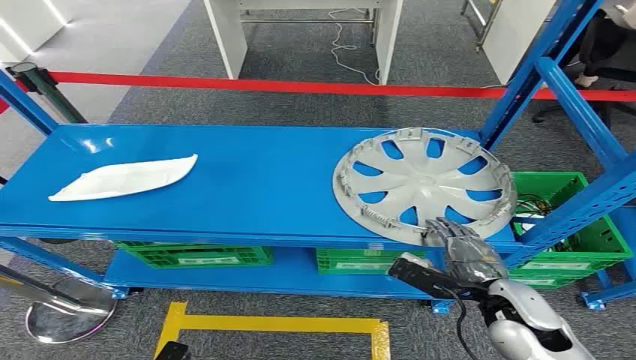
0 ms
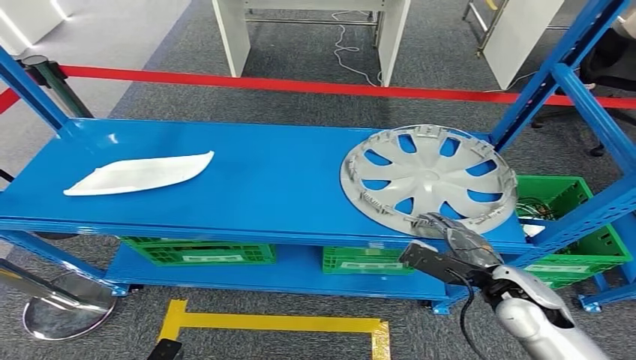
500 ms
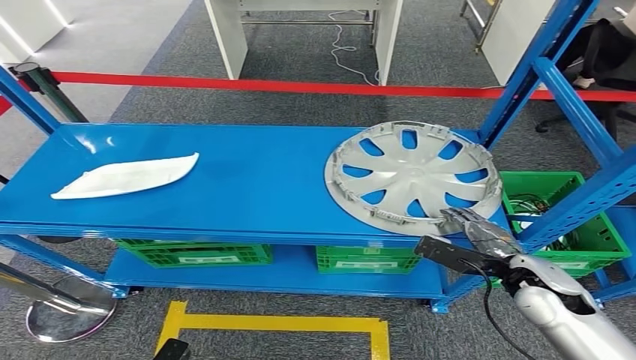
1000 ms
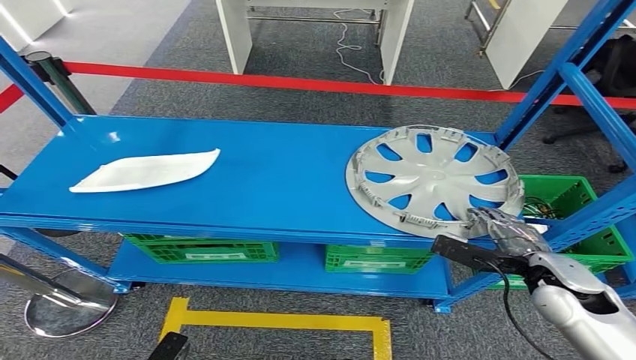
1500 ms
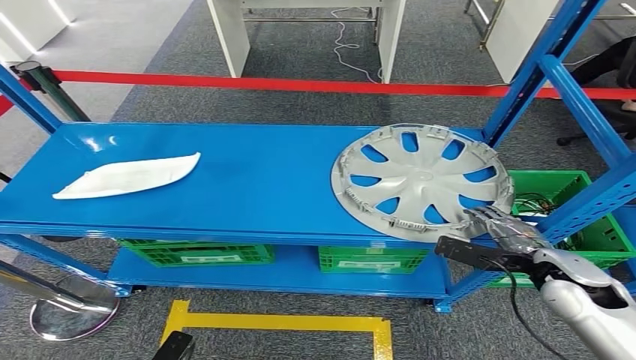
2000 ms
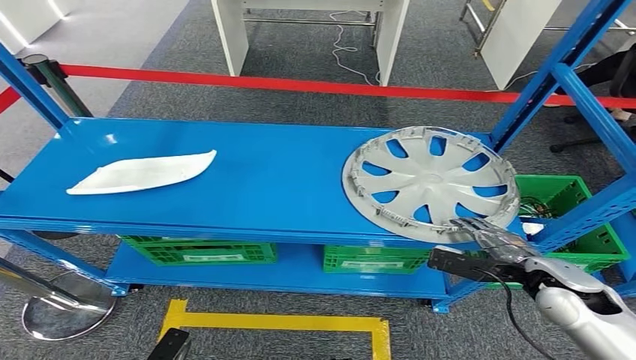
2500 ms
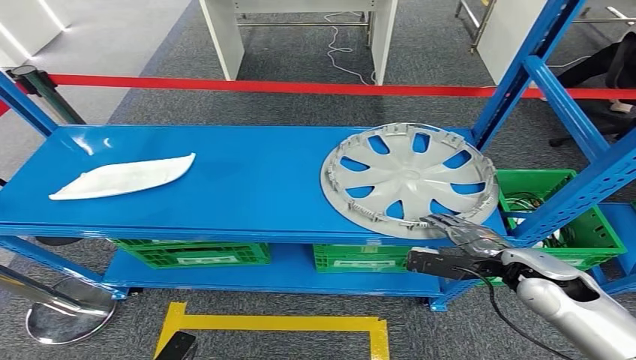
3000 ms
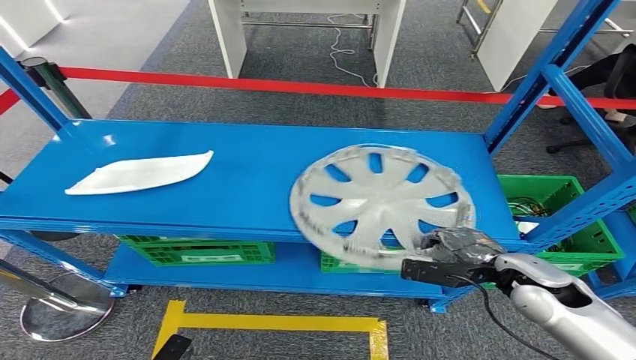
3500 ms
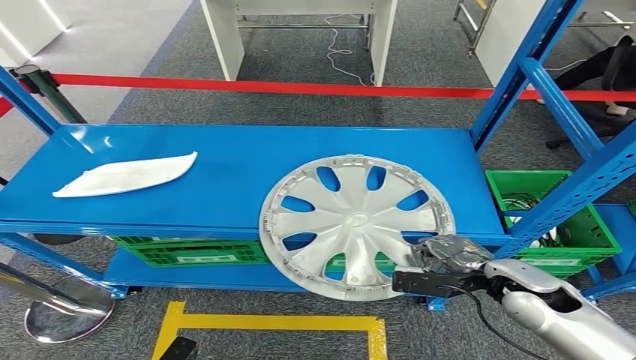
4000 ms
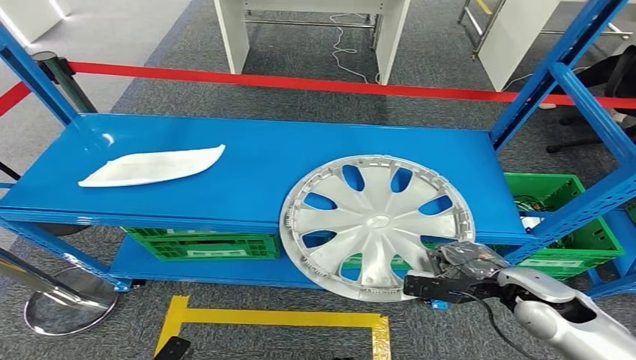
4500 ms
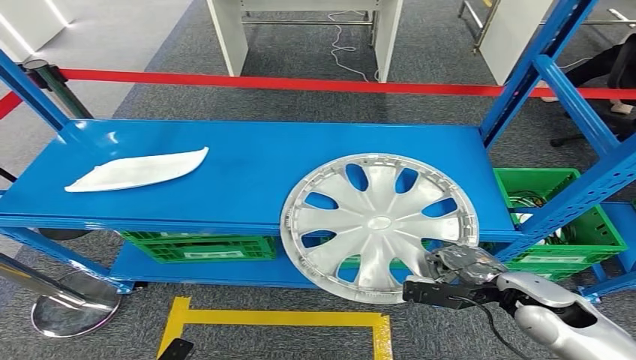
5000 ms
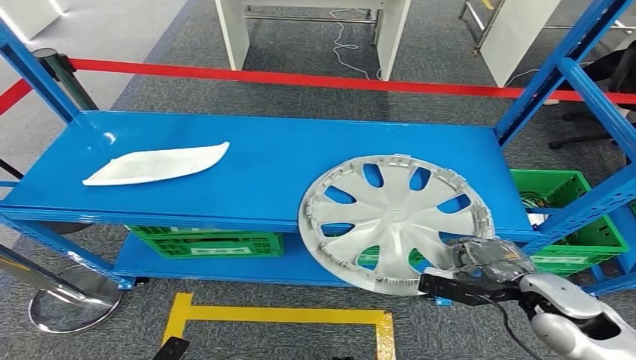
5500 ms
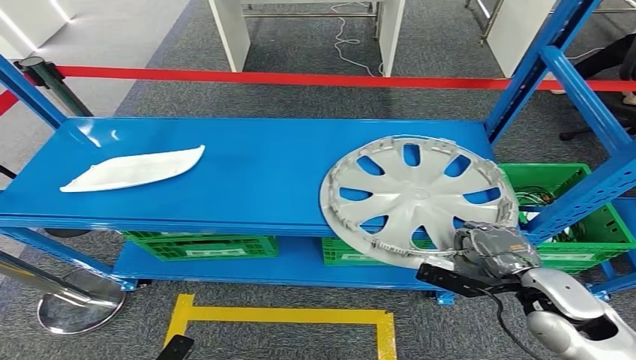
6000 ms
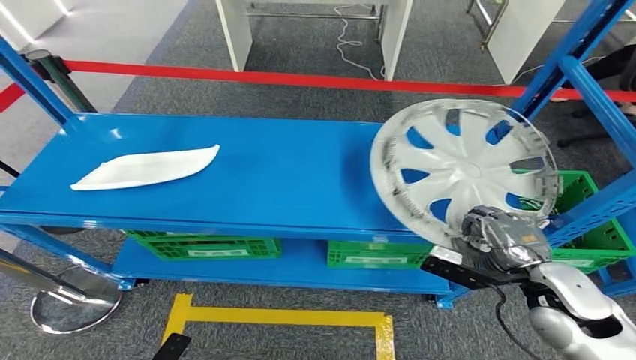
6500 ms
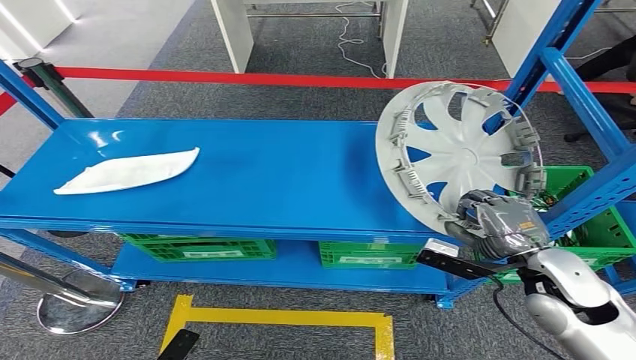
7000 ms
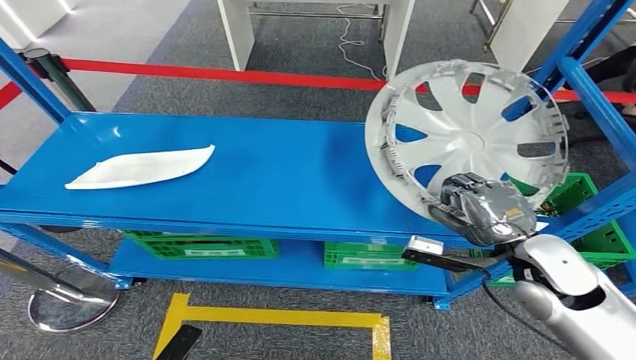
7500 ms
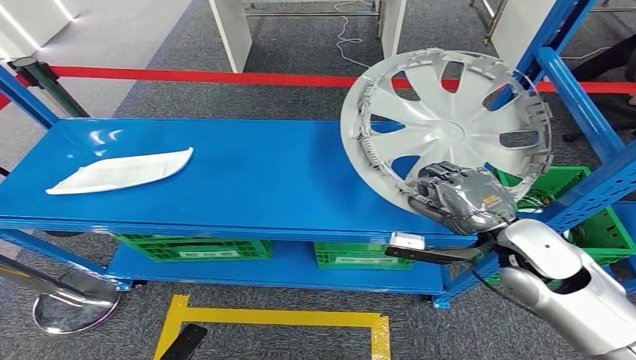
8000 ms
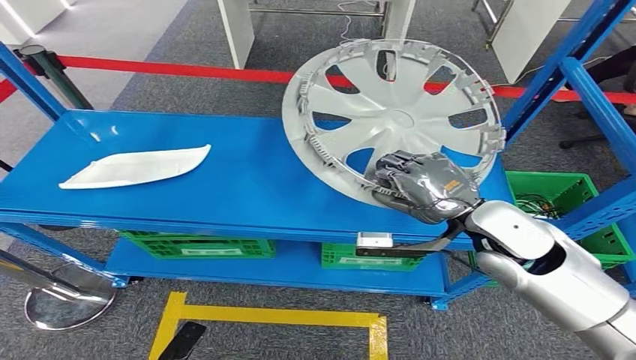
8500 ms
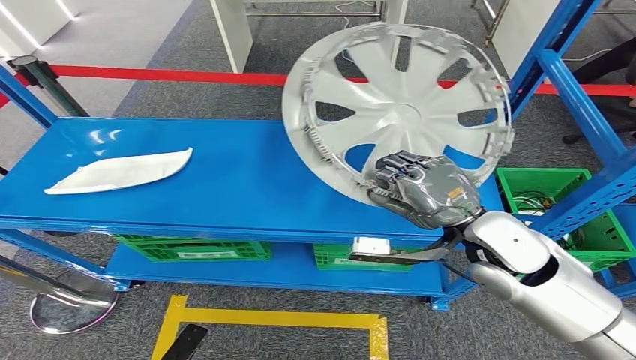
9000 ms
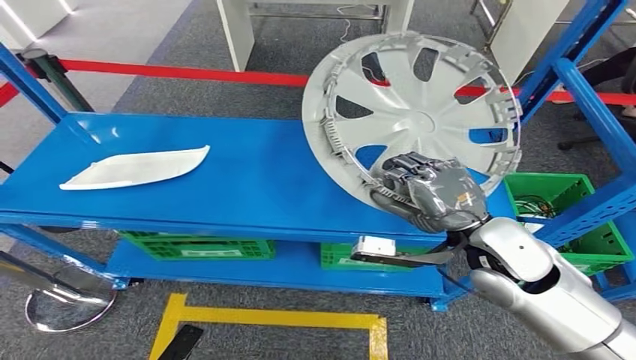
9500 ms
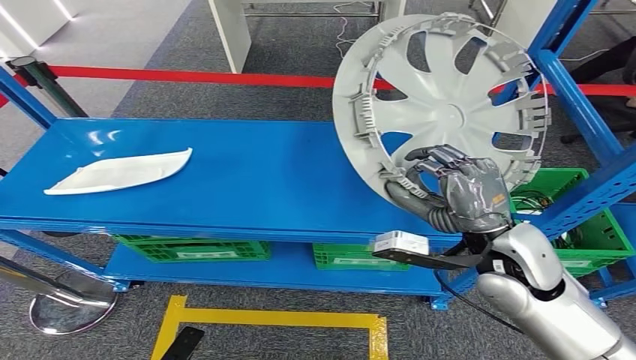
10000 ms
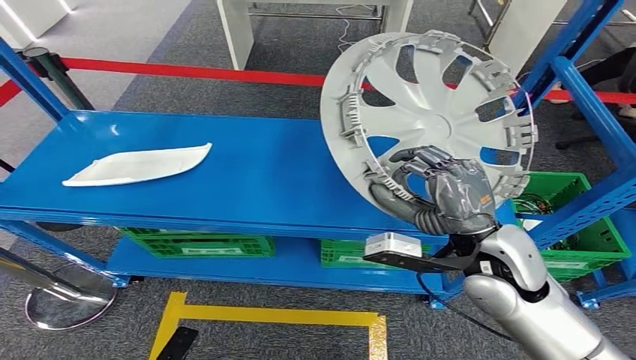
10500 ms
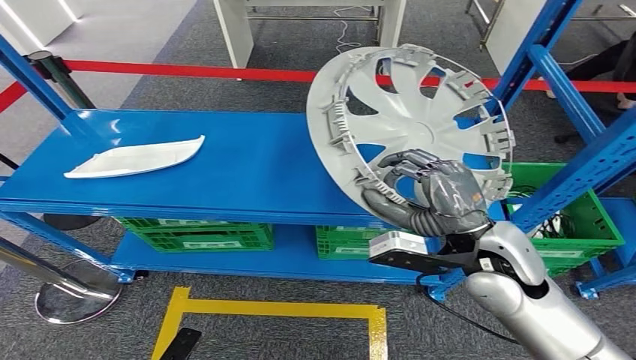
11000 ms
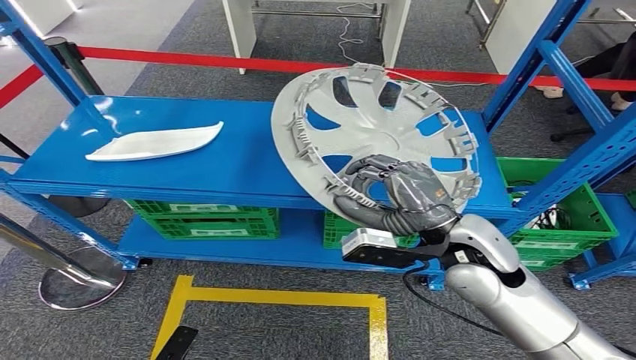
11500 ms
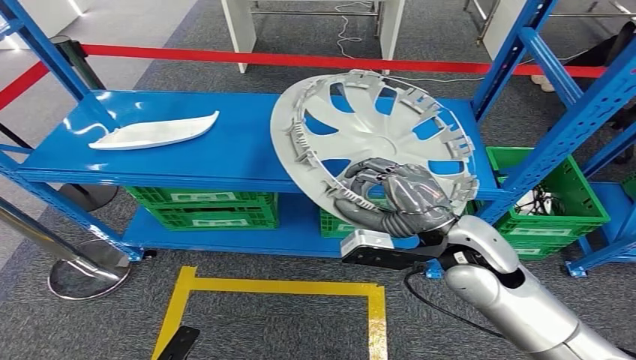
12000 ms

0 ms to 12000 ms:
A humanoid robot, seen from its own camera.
Step, 0 ms to 7000 ms: Pick up the small parts from the shelf.

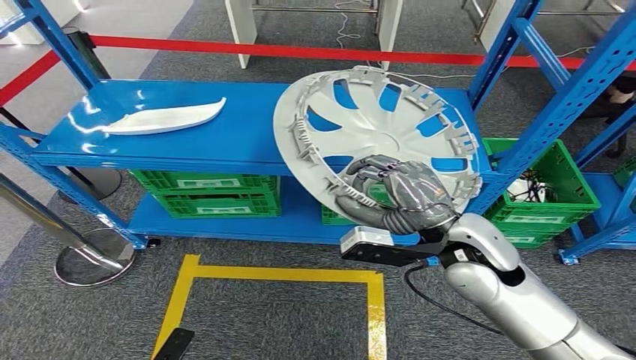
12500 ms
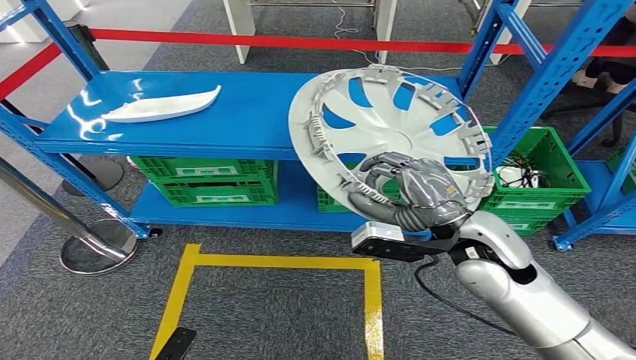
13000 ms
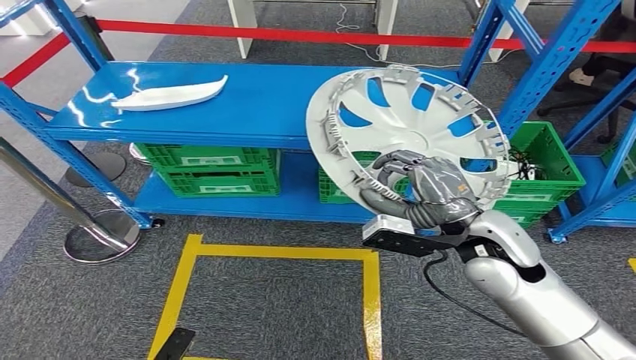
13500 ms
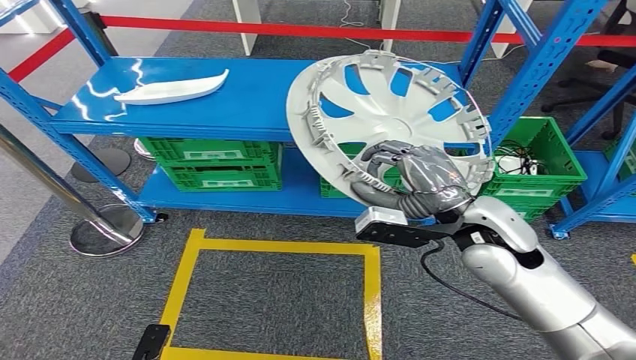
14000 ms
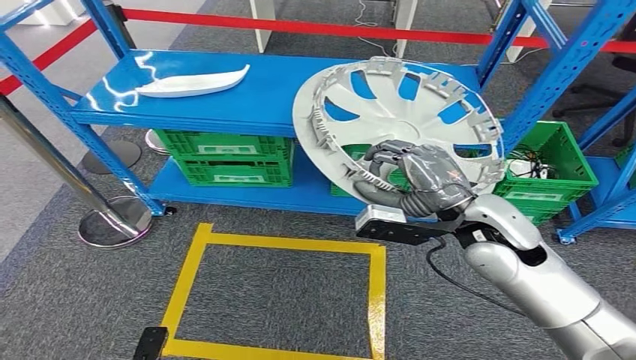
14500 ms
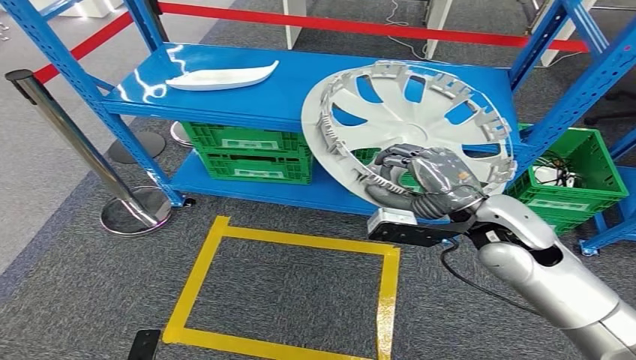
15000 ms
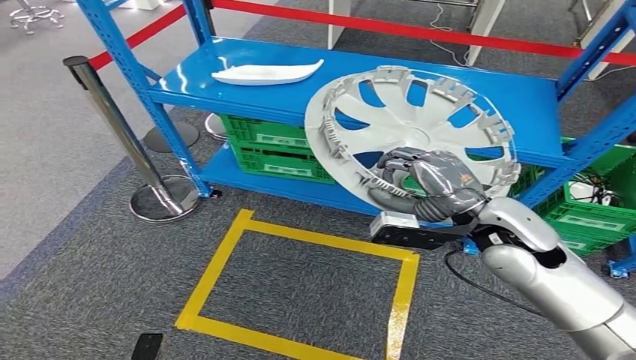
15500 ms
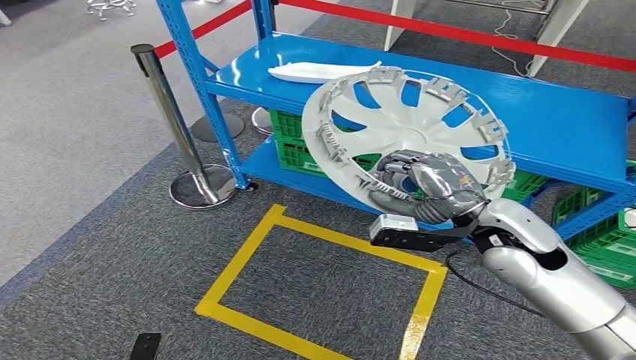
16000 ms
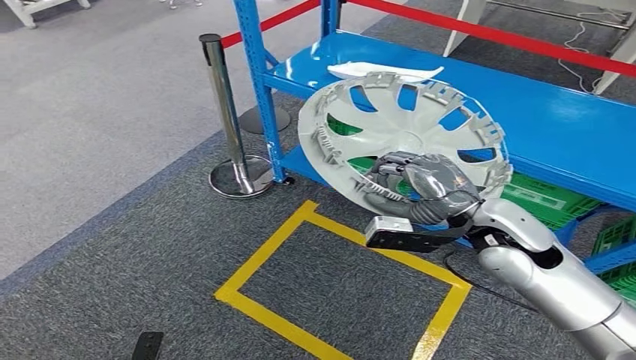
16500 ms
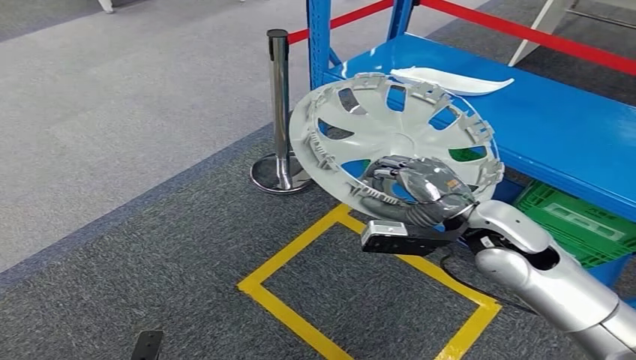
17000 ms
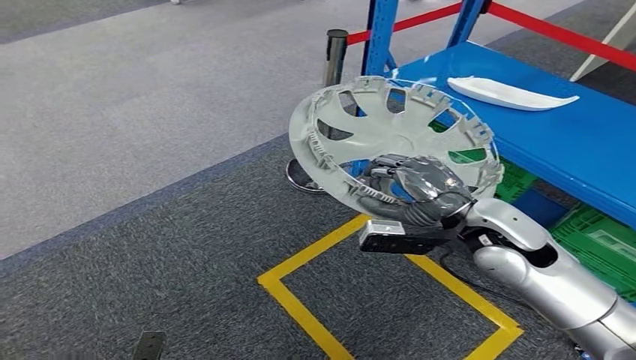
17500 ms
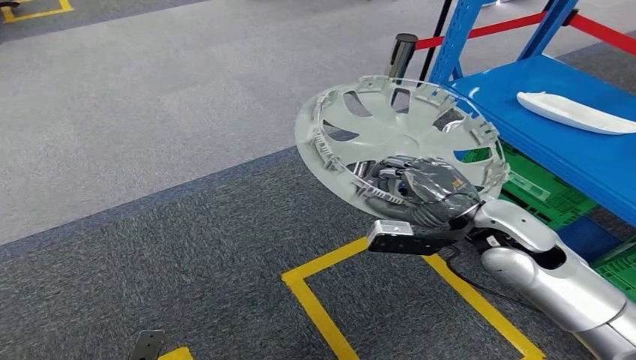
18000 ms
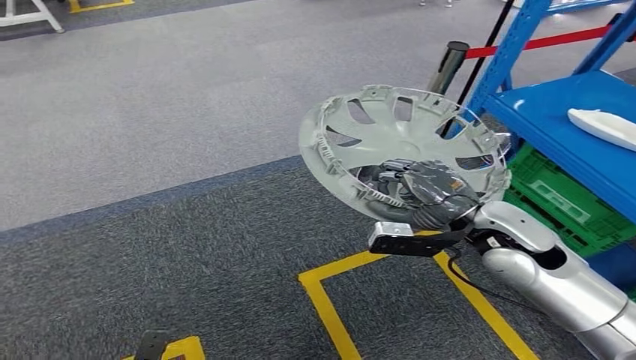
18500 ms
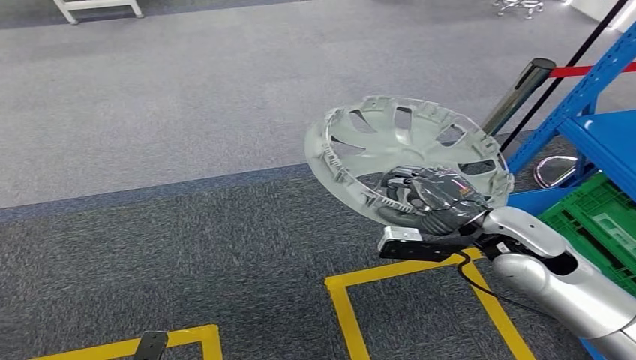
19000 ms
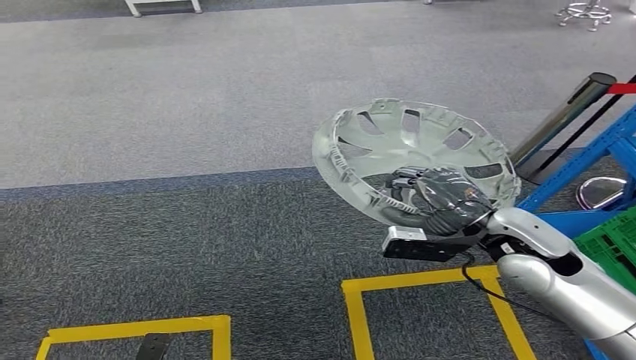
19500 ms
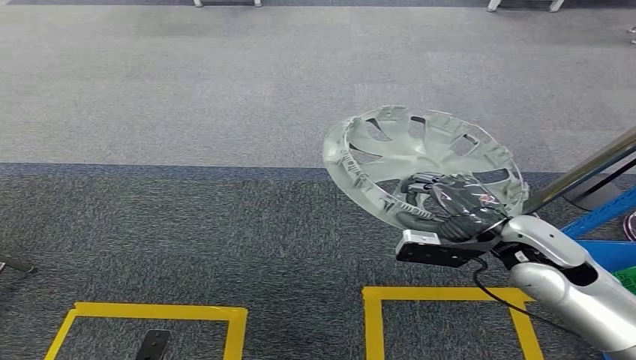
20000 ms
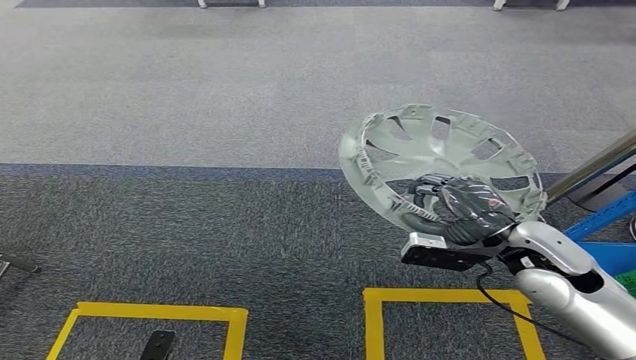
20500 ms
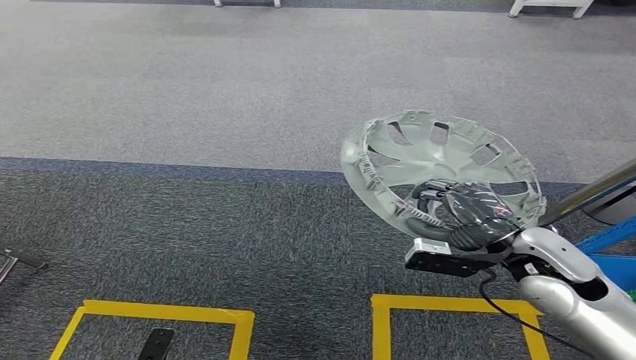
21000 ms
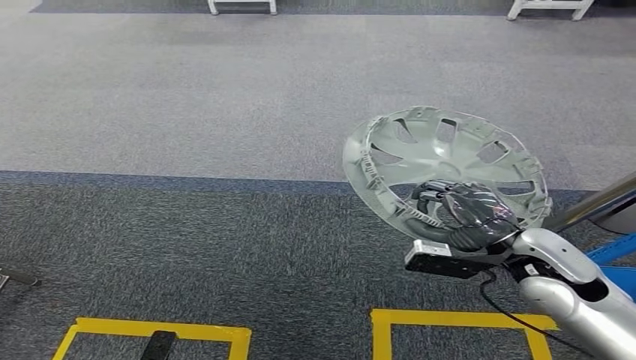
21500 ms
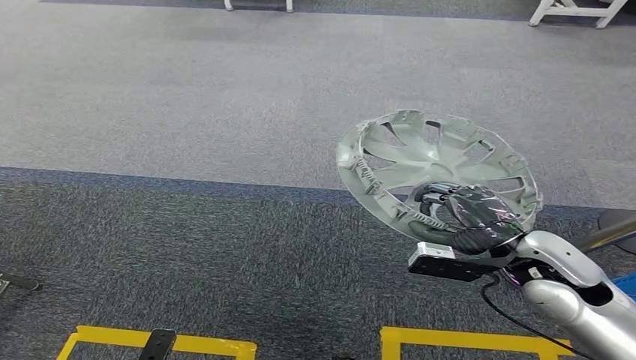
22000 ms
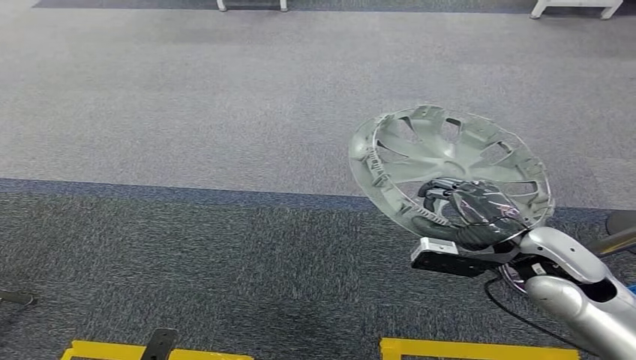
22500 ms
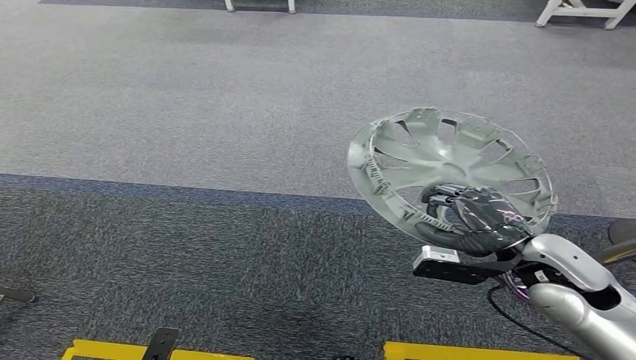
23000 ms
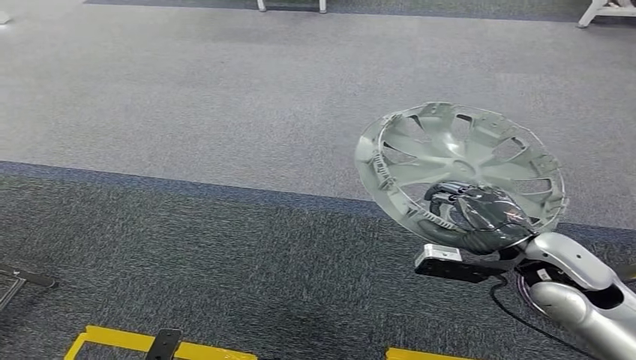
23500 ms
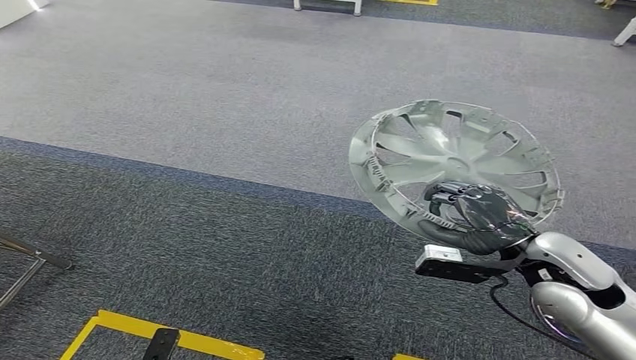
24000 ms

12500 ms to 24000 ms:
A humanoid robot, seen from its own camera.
22000 ms to 24000 ms: The two hands keep their place.
